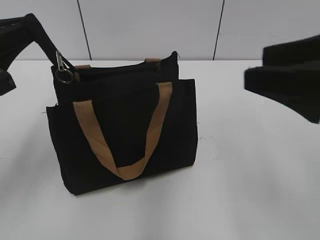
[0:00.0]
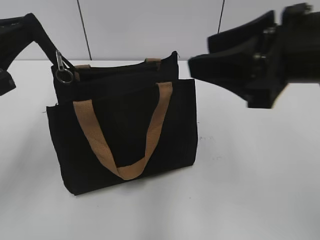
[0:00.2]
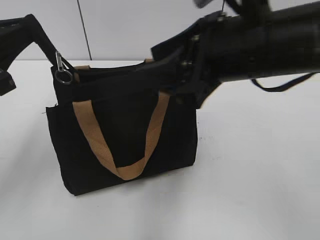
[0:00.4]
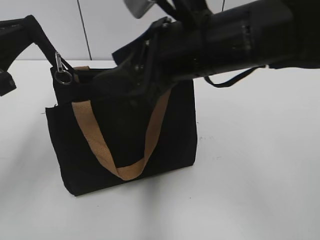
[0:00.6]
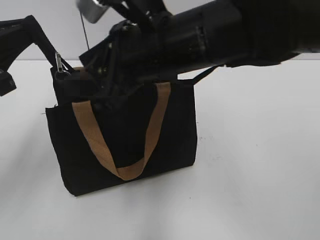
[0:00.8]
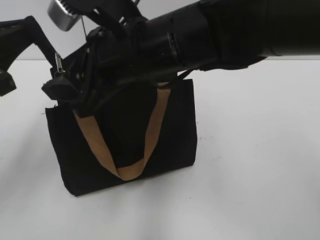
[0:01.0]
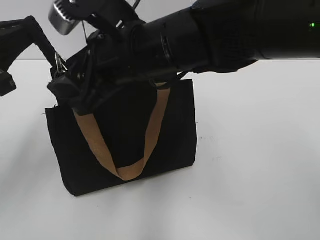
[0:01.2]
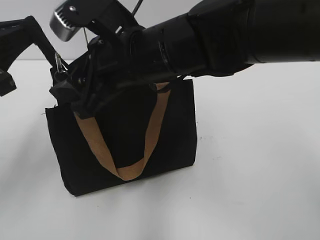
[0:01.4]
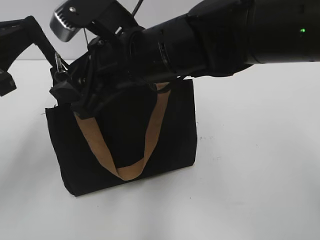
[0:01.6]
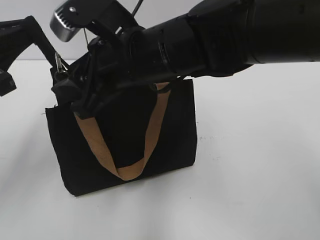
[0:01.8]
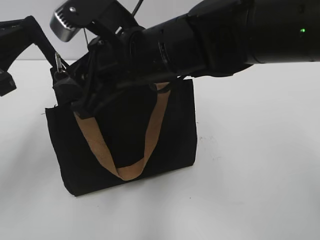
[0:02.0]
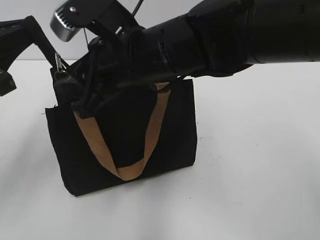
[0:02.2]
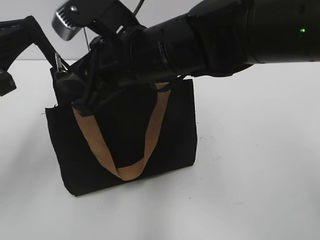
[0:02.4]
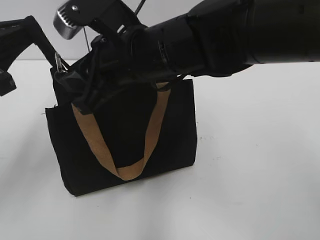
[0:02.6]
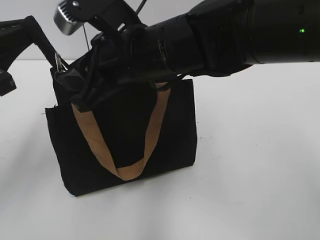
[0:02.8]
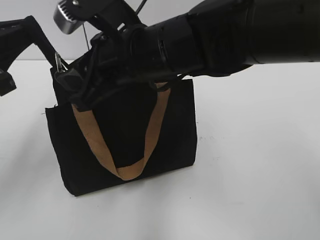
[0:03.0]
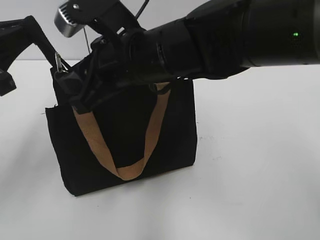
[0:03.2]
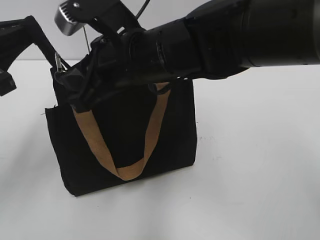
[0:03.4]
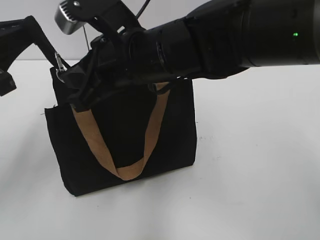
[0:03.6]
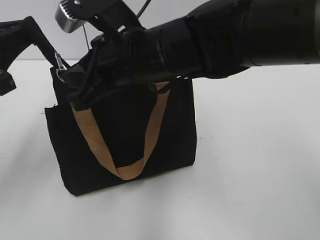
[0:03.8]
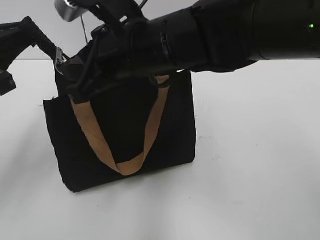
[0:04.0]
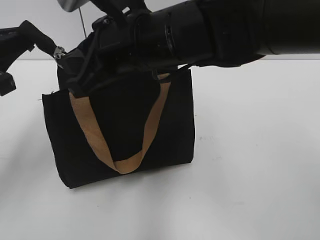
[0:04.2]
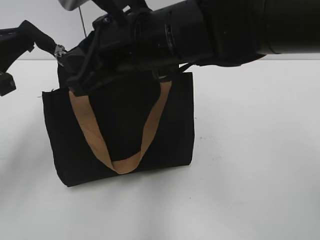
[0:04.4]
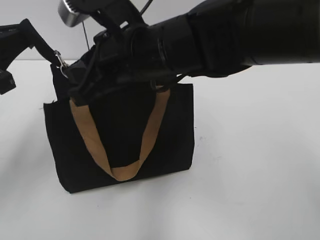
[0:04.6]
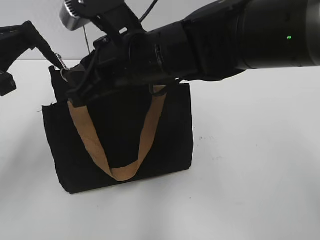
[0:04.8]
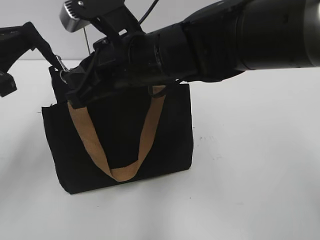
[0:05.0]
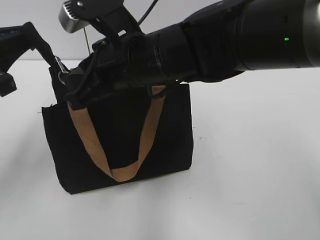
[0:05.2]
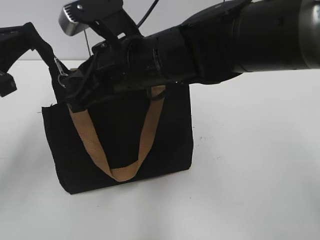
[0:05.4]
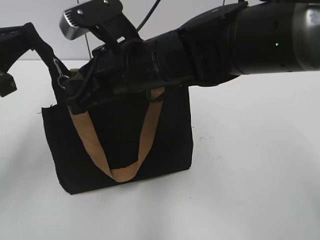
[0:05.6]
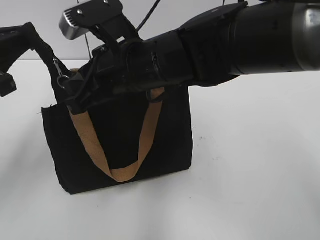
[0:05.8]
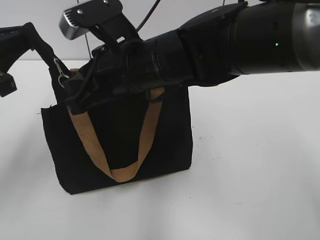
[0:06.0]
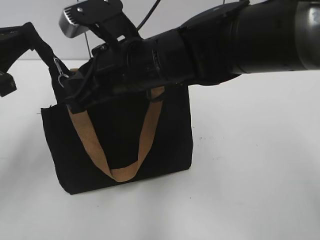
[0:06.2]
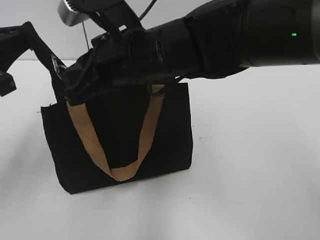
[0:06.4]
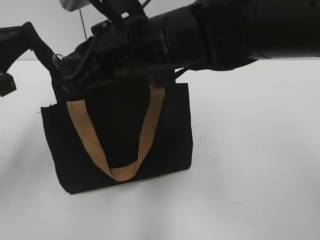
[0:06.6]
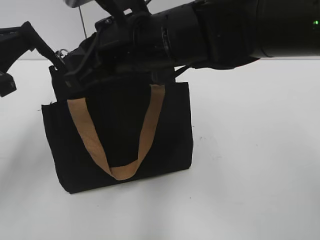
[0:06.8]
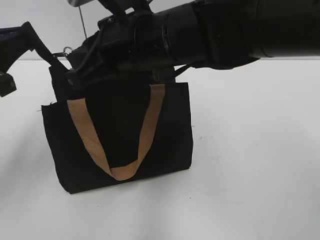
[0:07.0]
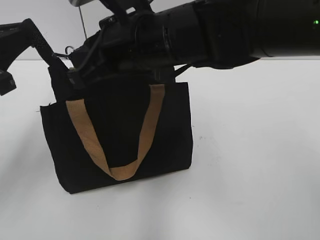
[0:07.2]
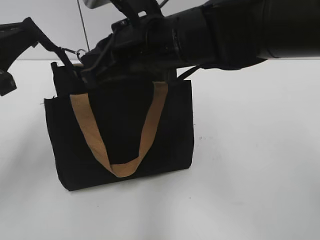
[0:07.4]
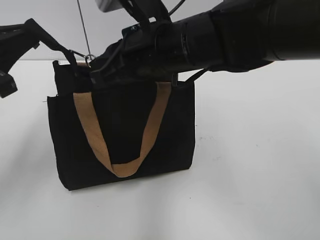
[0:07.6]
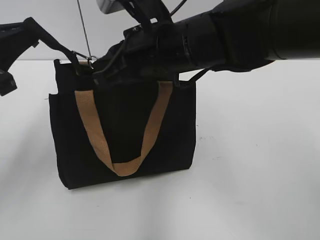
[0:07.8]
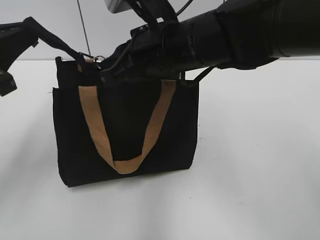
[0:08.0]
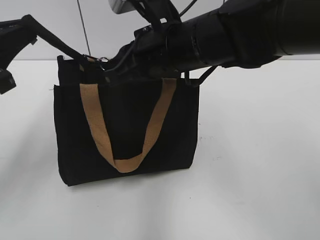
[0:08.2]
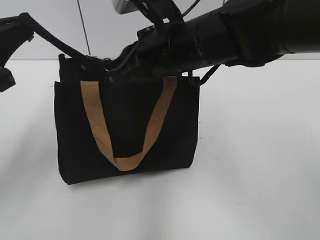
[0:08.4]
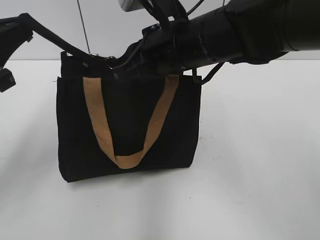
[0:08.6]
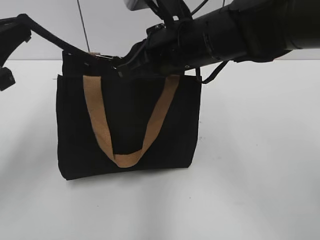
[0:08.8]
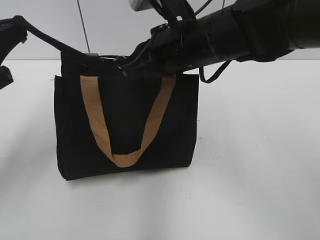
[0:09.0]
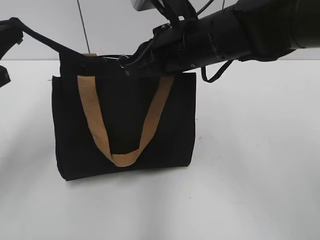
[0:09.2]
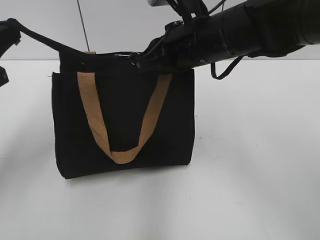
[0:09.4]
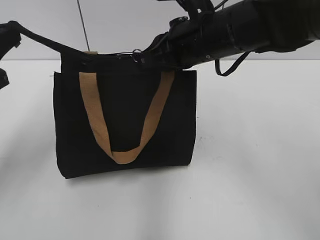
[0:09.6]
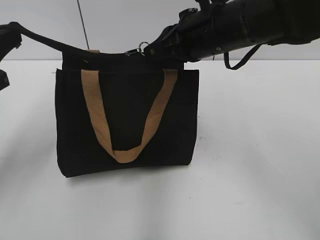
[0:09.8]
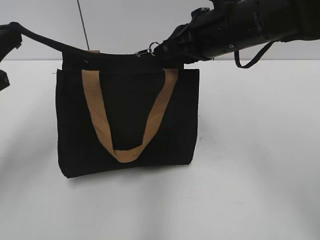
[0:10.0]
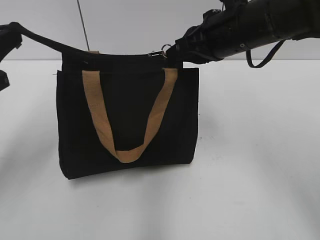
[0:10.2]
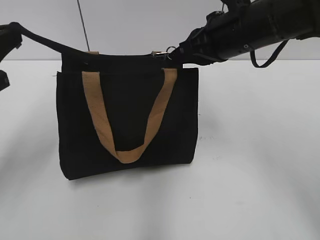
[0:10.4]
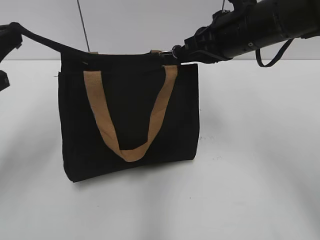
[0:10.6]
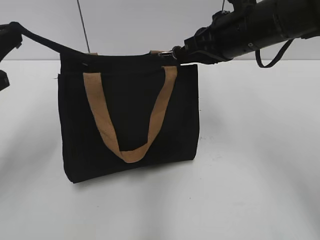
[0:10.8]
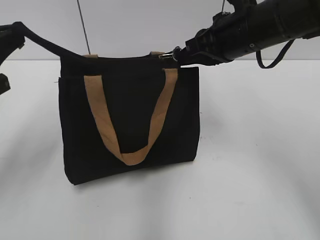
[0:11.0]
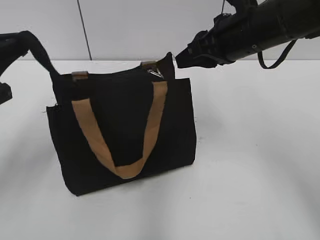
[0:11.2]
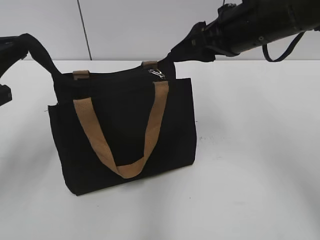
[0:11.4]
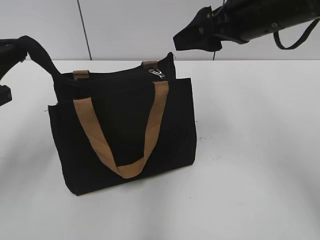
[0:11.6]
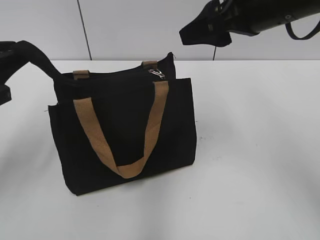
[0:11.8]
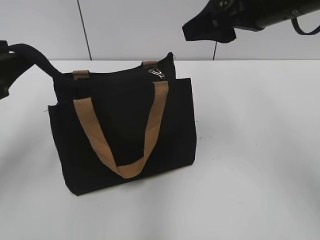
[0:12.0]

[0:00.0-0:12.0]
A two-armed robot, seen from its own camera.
Step, 0:00.0 to 0:11.2: Zip up the bag with your right hand.
0:00.0 to 0:01.6: The right gripper is displaced to the left and forward by roughly 25 cm.
0:01.6 to 0:03.0: The right gripper closes.
0:03.0 to 0:04.4: The right gripper closes up.
0:04.4 to 0:07.6: The grippers make only small movements.
0:07.6 to 0:09.0: The grippers stay close to where they were, moving slightly.
0:09.0 to 0:10.4: The right gripper heads to the right, covering about 10 cm.
0:10.4 to 0:12.0: The left gripper opens its fingers. The right gripper is displaced upward by approximately 5 cm, and opens.

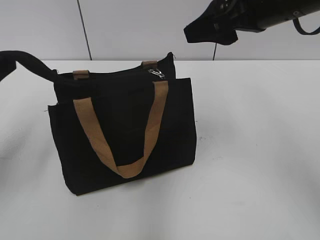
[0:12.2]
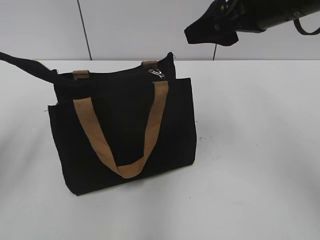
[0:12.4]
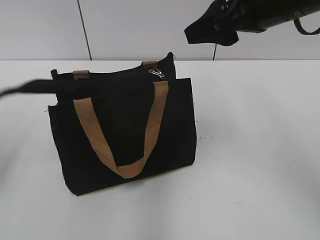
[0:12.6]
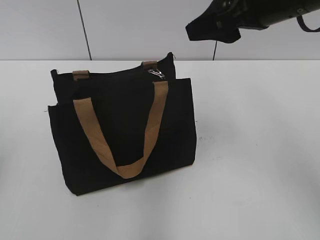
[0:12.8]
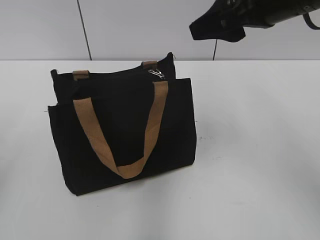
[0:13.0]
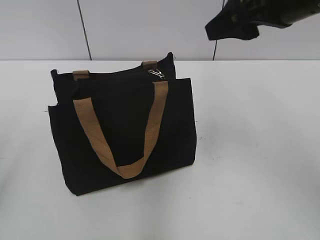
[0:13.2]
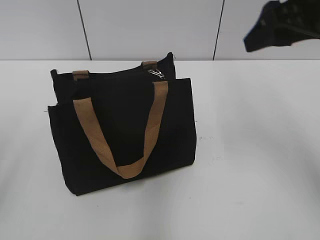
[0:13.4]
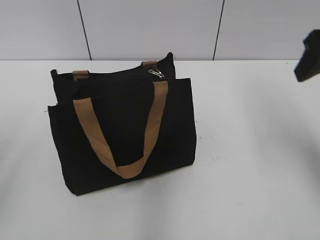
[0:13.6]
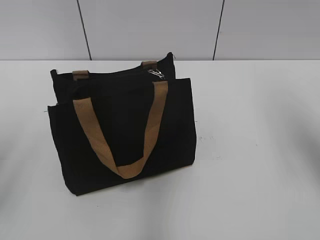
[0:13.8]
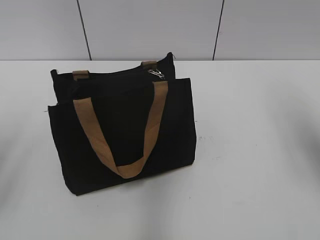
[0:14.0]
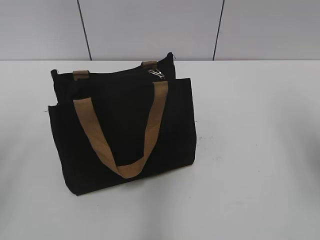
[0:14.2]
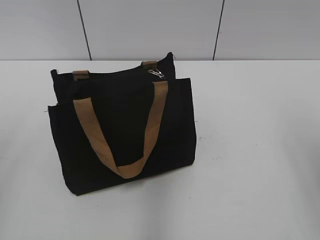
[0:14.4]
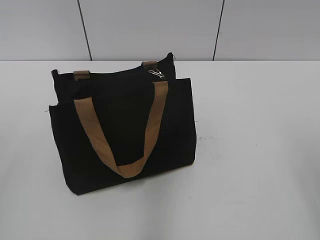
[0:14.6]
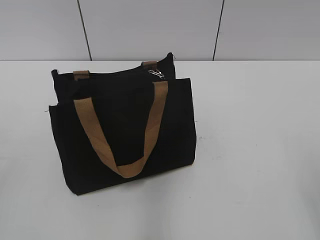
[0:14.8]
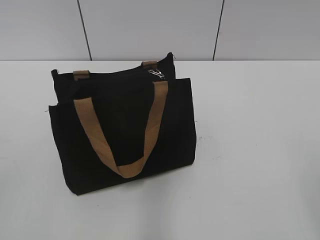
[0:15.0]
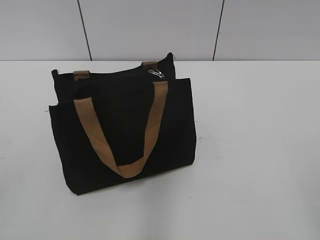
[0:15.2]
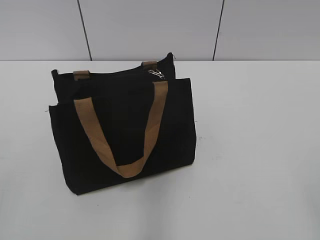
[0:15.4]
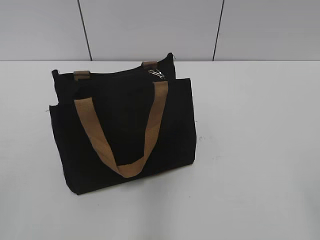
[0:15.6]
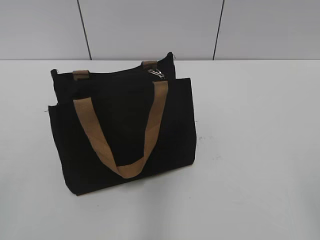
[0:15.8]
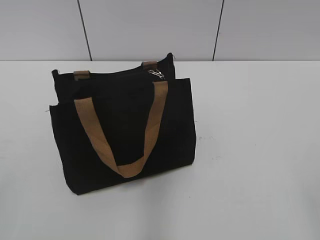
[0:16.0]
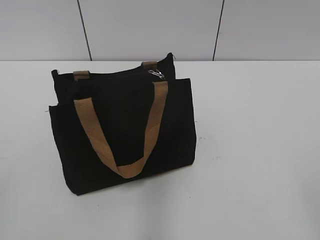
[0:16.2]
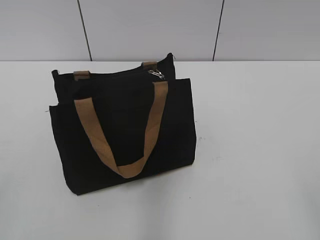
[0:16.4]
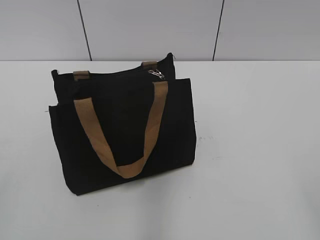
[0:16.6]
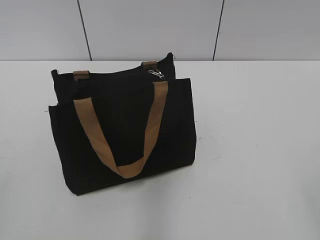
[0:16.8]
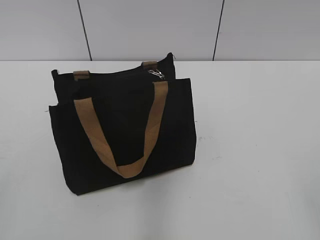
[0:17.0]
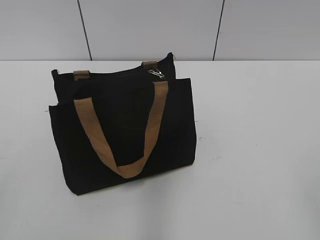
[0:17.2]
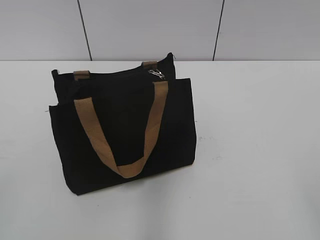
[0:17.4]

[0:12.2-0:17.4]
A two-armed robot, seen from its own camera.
0:12.2 to 0:14.0: The right gripper goes roughly 15 cm to the right.
0:14.0 to 0:15.6: Both grippers travel together backward, roughly 25 cm.
0:15.6 to 0:17.4: Neither gripper changes place.
